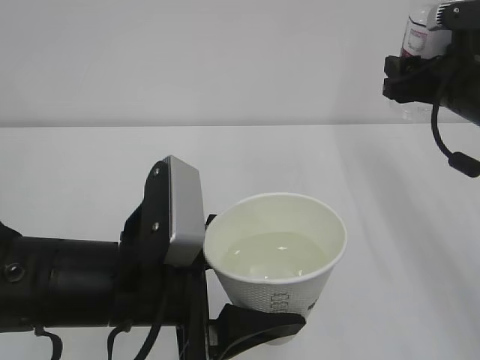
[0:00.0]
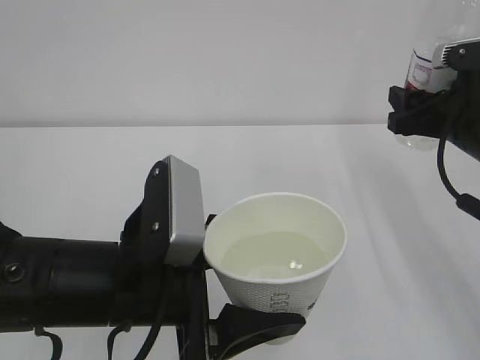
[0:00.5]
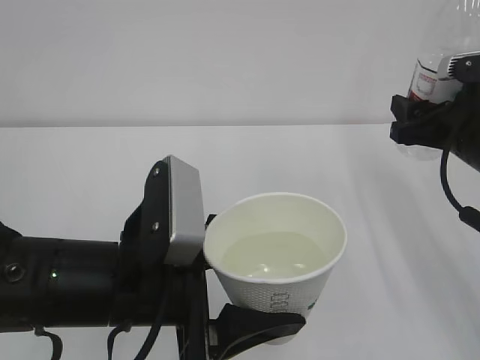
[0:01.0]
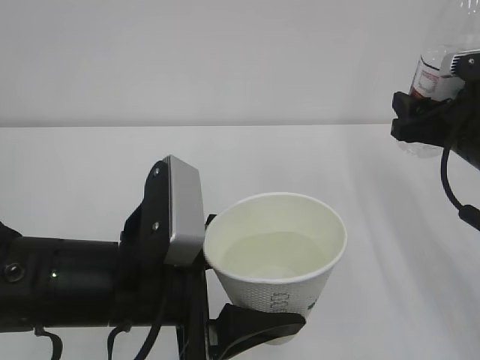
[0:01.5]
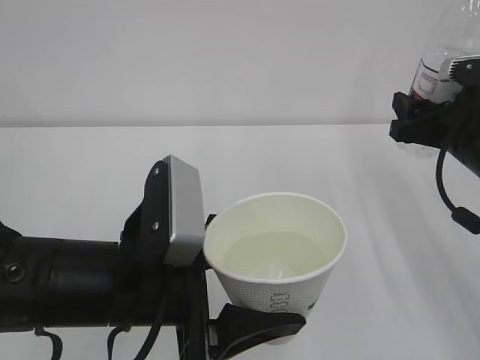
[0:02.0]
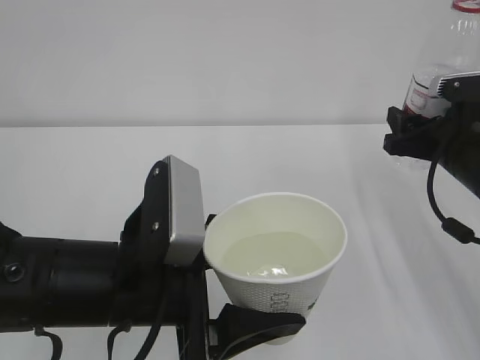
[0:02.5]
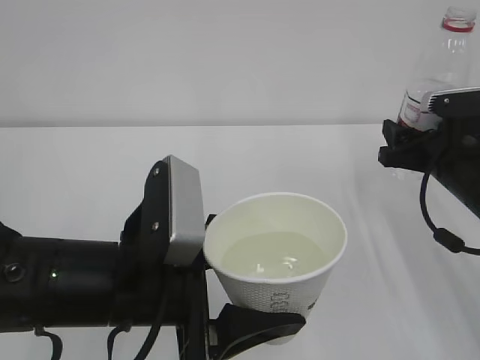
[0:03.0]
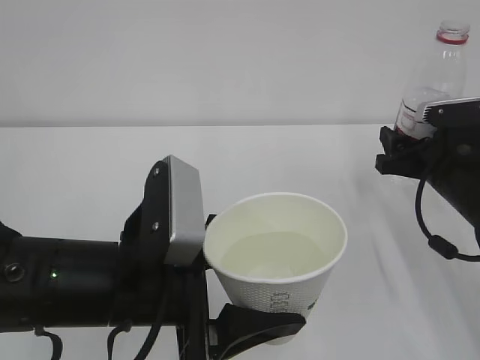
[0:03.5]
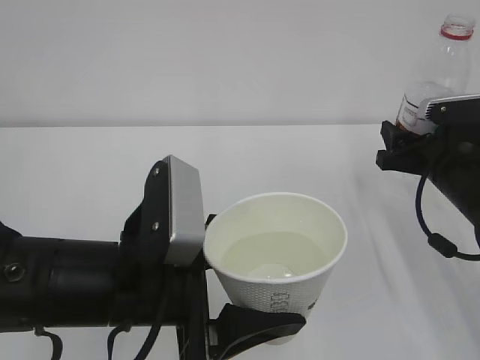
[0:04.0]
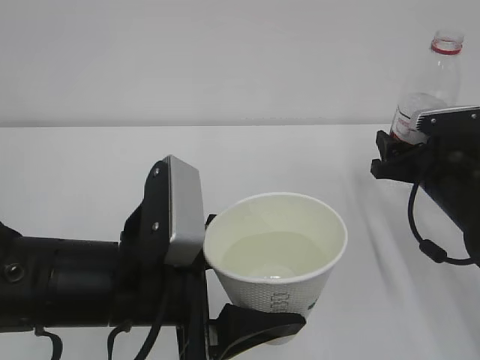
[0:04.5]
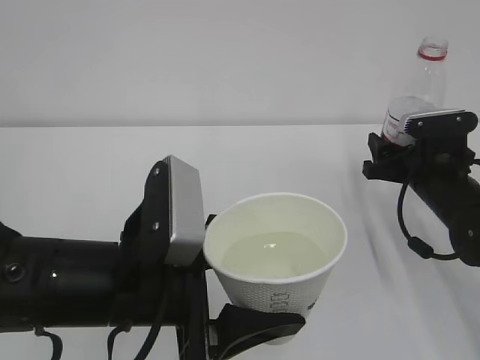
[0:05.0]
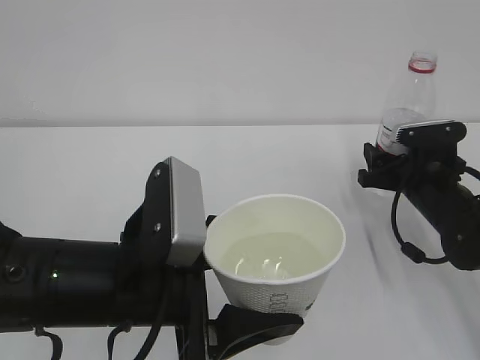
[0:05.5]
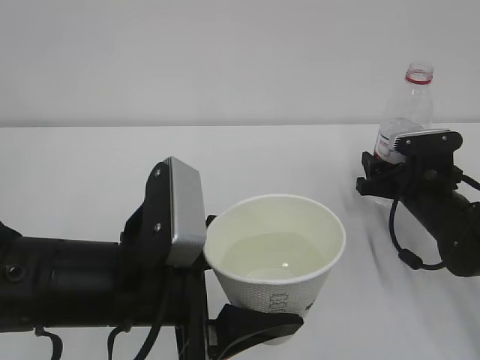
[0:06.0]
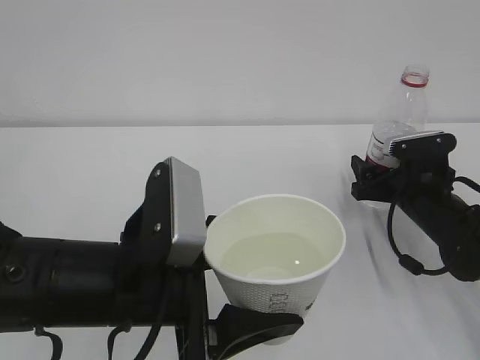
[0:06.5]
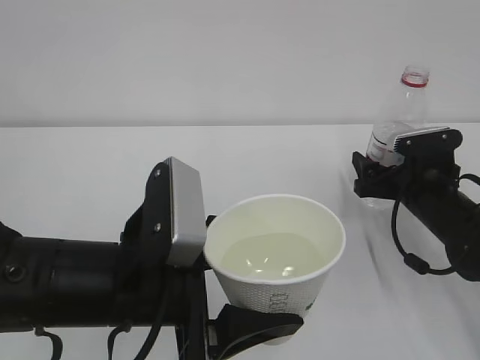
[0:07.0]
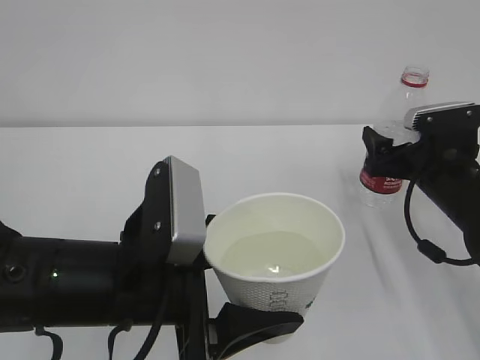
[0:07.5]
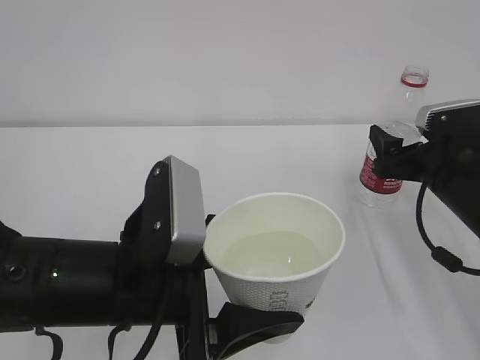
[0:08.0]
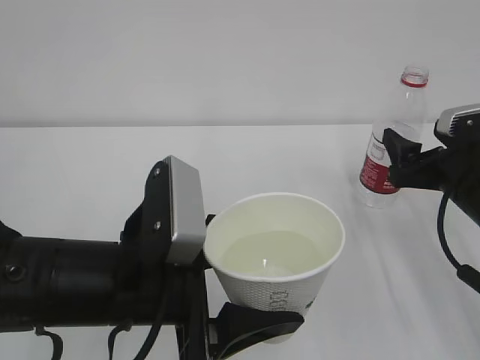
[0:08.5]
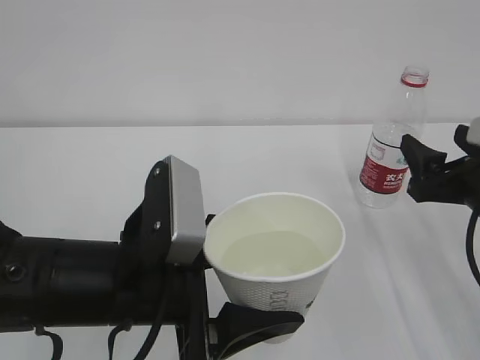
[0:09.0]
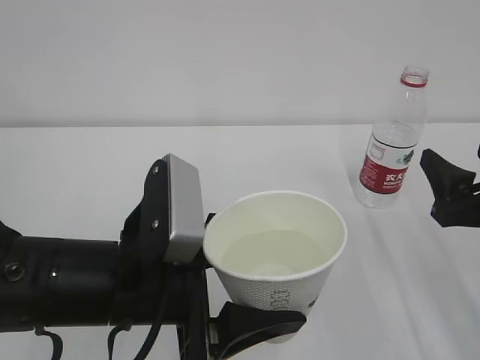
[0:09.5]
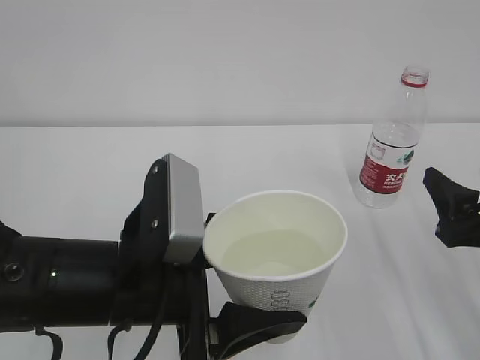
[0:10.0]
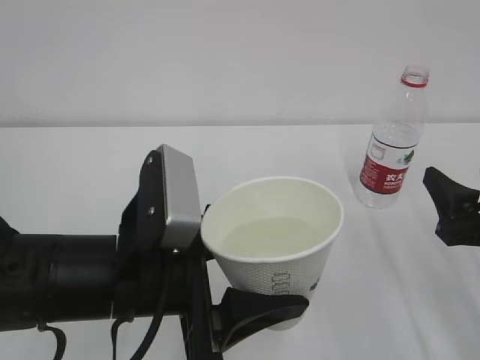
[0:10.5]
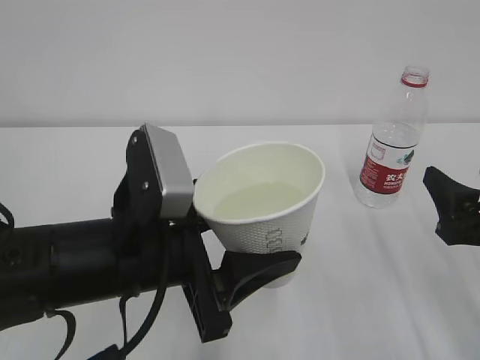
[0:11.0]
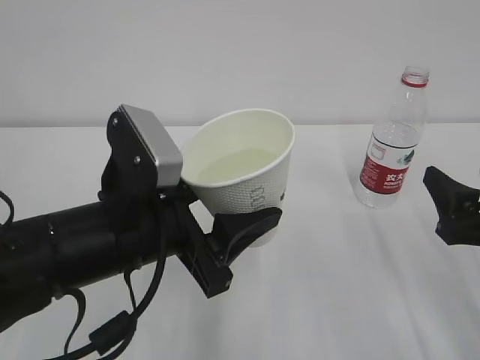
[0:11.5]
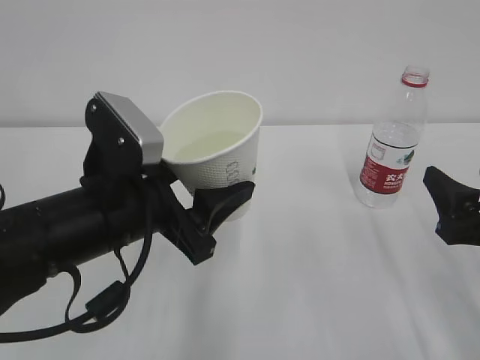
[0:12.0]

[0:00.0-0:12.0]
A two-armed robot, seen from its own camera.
0:00.0 to 0:02.0: The right gripper changes place by about 5 cm.
0:02.0 to 0:04.0: The right gripper heads downward, covering roughly 5 cm.
0:04.0 to 0:06.0: The right gripper heads downward, covering roughly 5 cm.
0:06.0 to 0:08.0: The right gripper travels upward by some 5 cm, and opens up.
0:08.0 to 0:10.0: The right gripper shifts some 10 cm backward.
0:10.0 to 0:12.0: The left gripper moves roughly 5 cm.

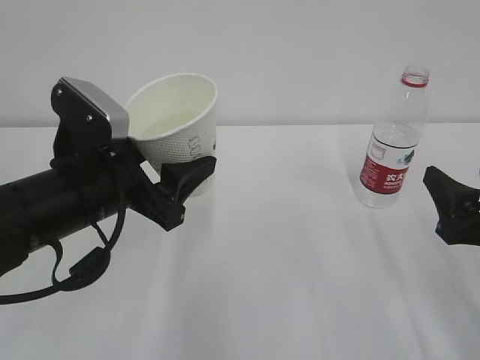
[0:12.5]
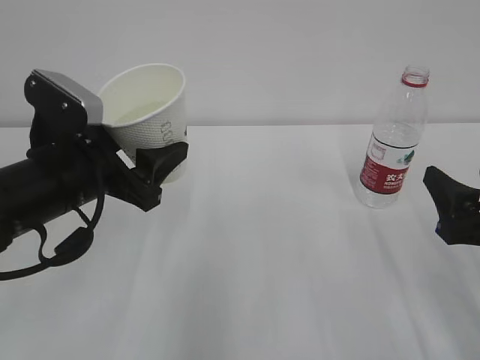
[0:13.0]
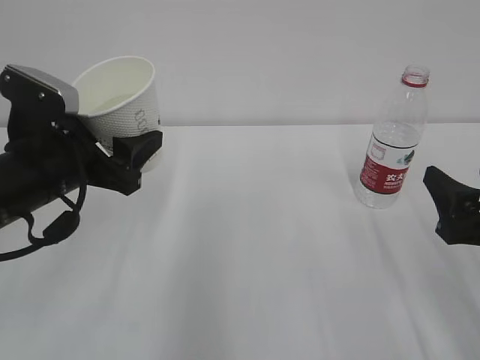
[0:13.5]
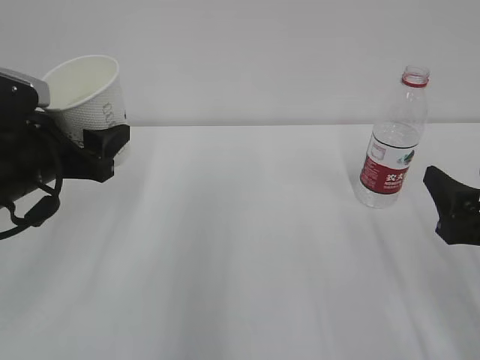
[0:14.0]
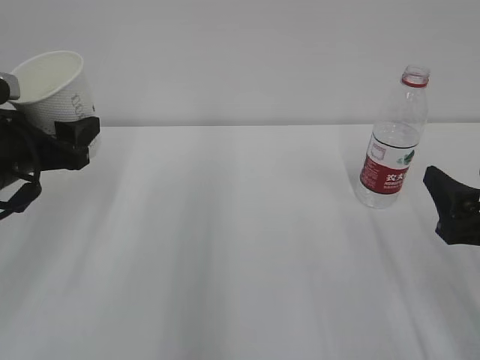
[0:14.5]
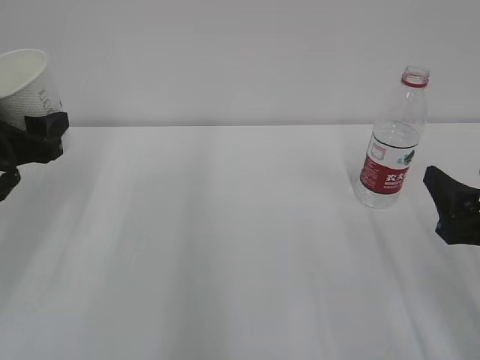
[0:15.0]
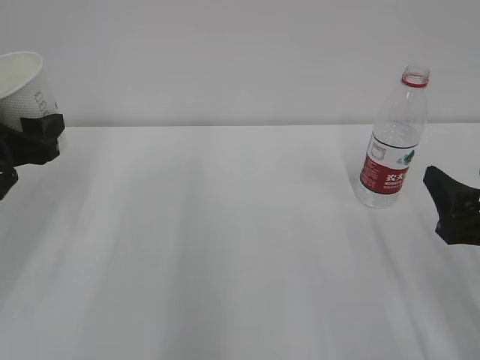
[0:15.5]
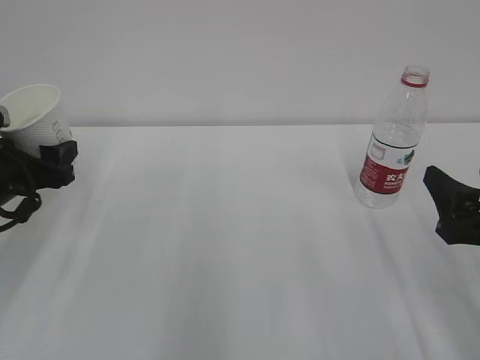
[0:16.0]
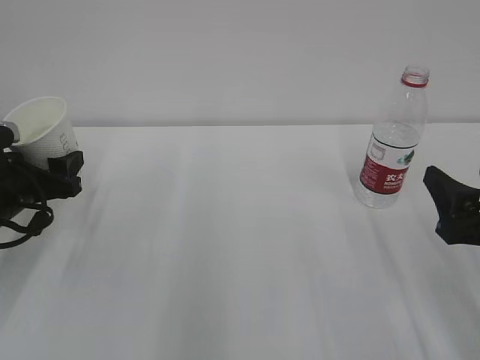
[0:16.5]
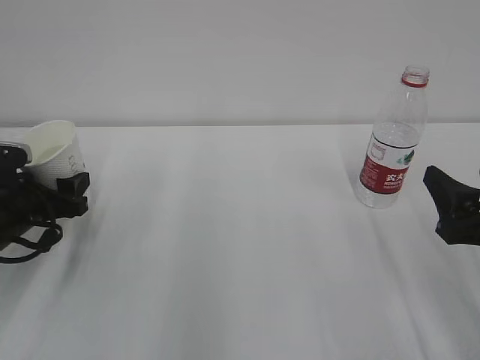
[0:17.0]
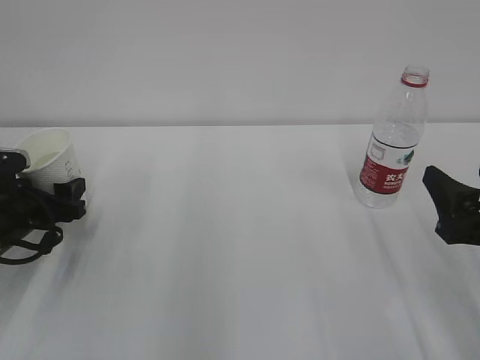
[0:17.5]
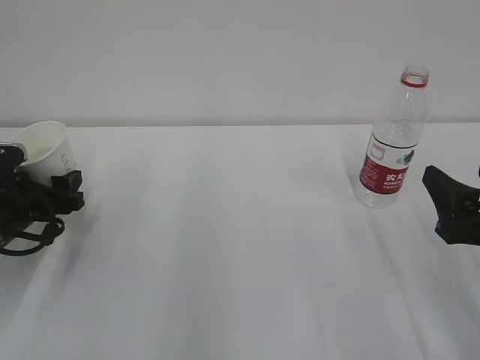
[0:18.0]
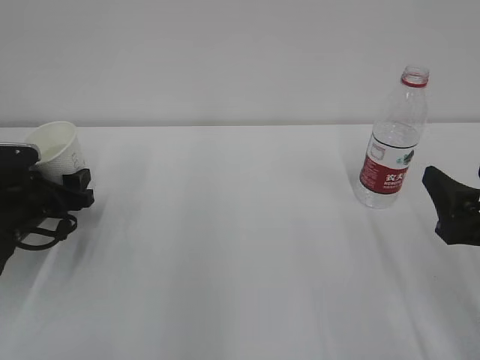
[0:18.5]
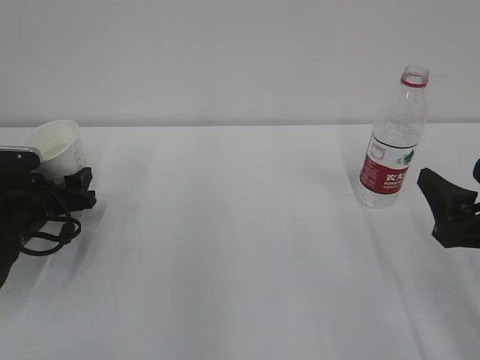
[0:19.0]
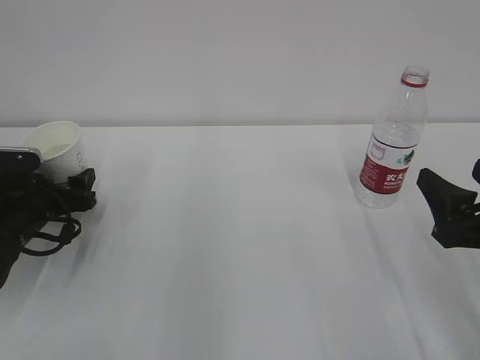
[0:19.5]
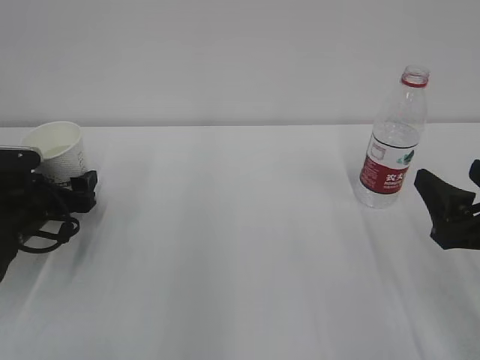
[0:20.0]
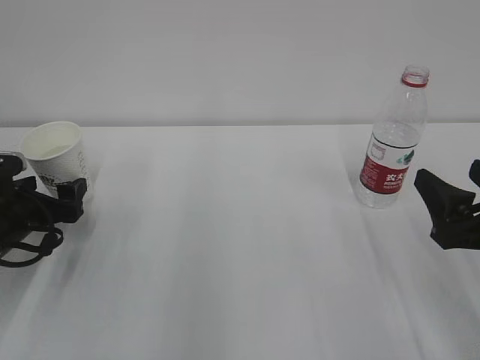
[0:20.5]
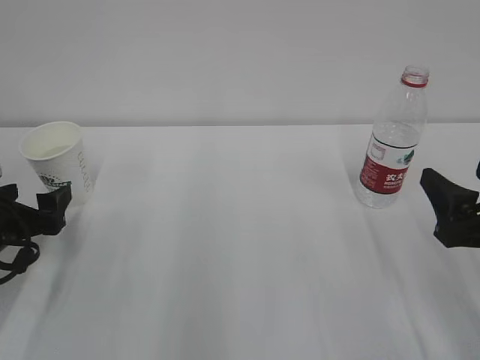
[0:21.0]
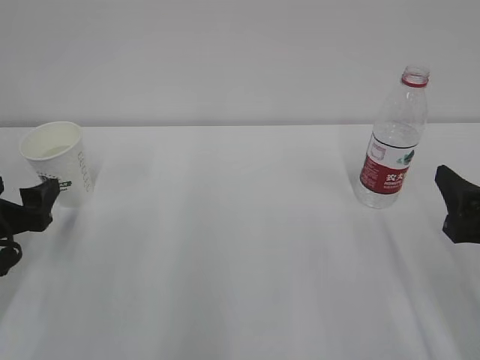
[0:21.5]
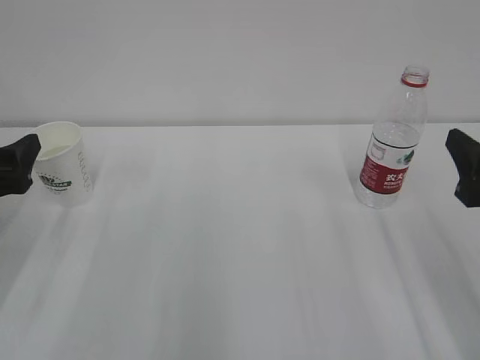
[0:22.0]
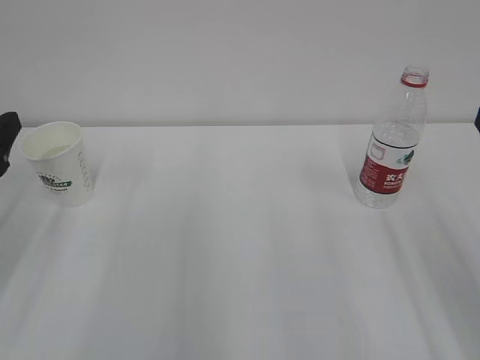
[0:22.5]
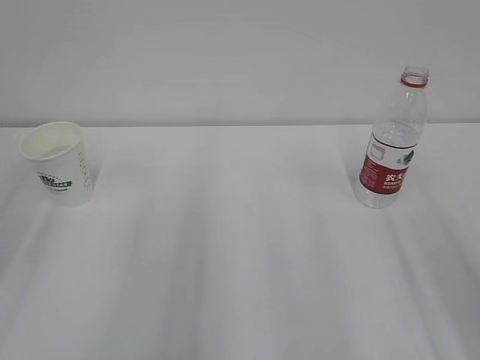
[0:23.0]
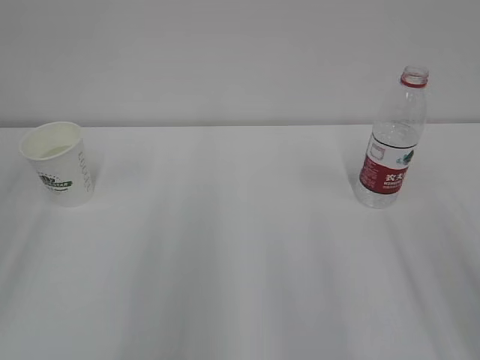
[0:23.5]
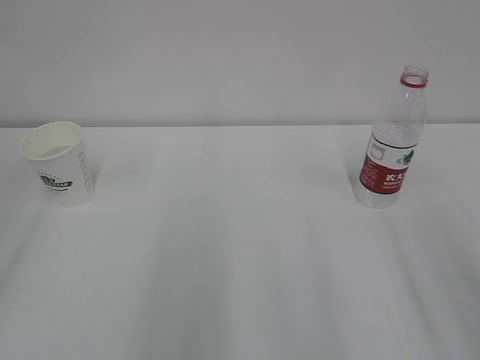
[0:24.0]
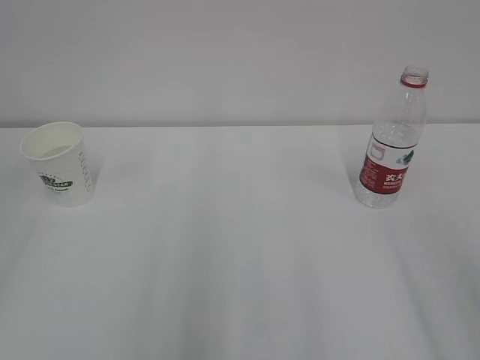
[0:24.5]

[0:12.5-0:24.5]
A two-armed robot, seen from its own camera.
0:12.5 to 0:14.5: The left gripper goes some 10 cm to the left and forward.
0:14.5 to 0:16.5: The left gripper heads downward, covering some 5 cm.
0:16.5 to 0:18.5: The left gripper is displaced downward by about 5 cm.
0:18.5 to 0:20.5: The left gripper opens up.
0:20.5 to 0:22.5: The right gripper goes roughly 10 cm upward, while the left gripper is displaced upward and backward by approximately 15 cm.
